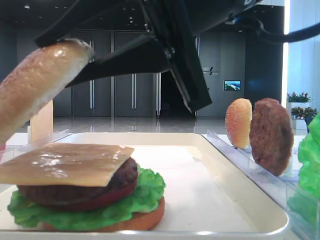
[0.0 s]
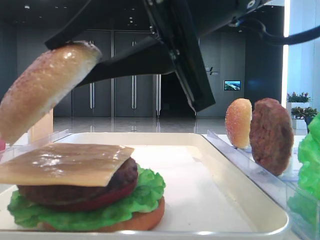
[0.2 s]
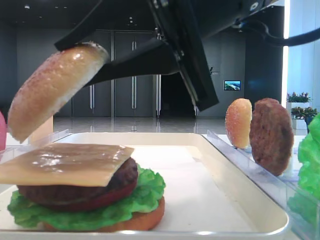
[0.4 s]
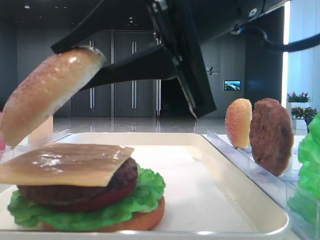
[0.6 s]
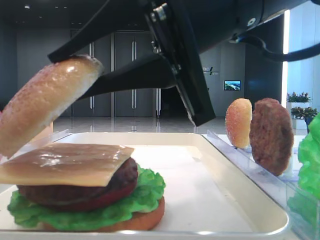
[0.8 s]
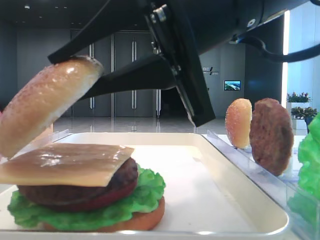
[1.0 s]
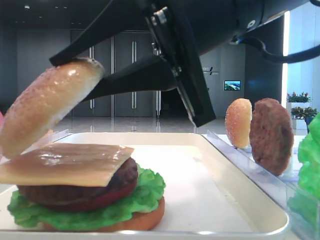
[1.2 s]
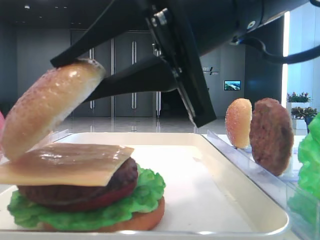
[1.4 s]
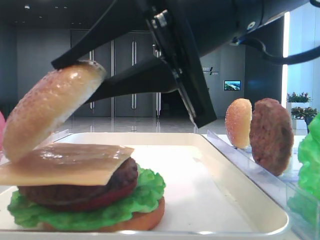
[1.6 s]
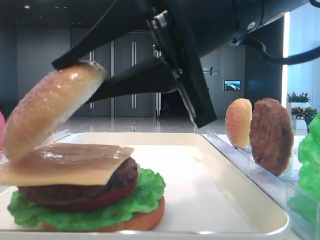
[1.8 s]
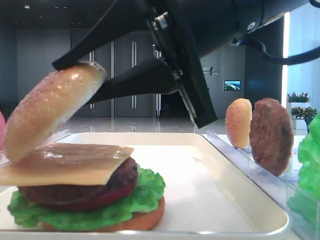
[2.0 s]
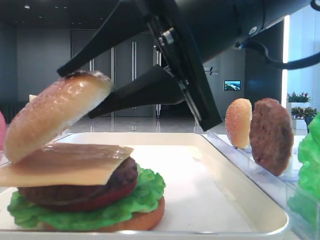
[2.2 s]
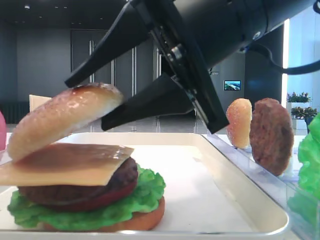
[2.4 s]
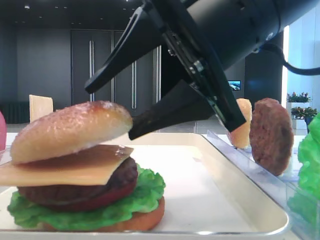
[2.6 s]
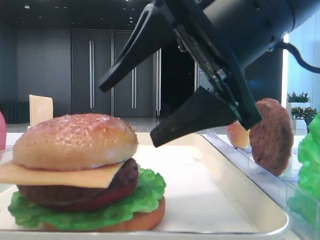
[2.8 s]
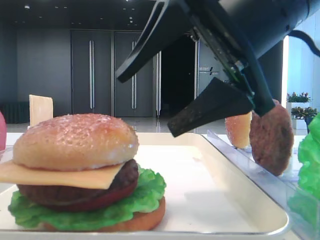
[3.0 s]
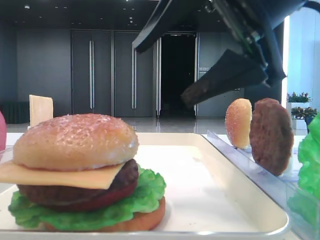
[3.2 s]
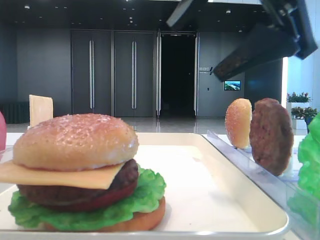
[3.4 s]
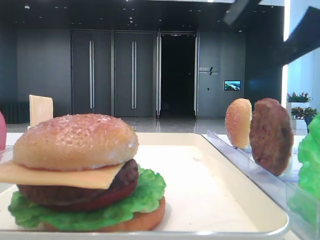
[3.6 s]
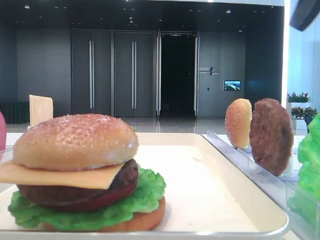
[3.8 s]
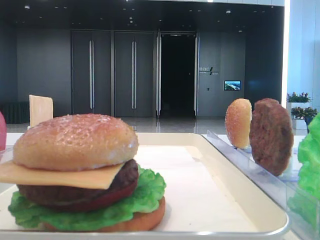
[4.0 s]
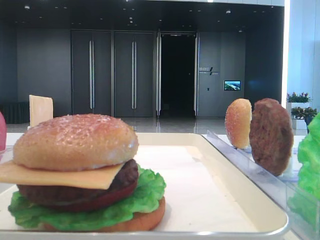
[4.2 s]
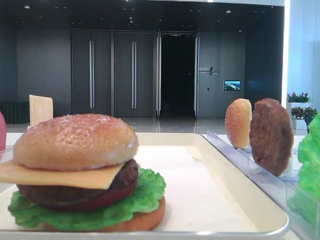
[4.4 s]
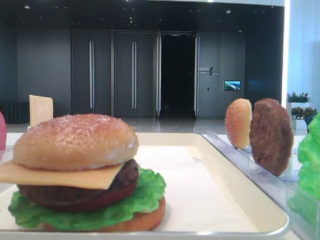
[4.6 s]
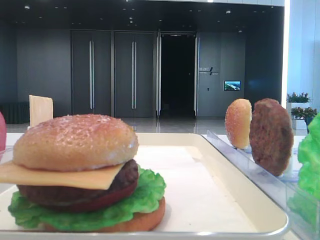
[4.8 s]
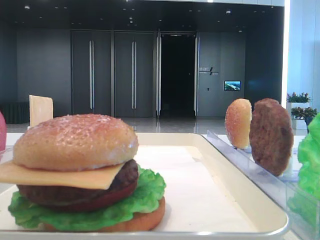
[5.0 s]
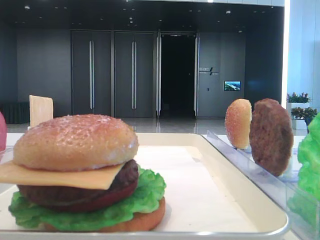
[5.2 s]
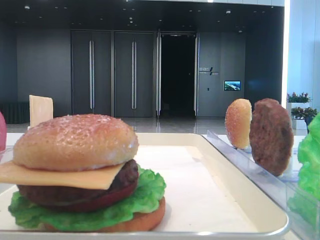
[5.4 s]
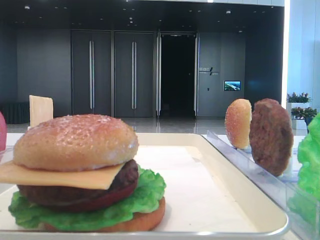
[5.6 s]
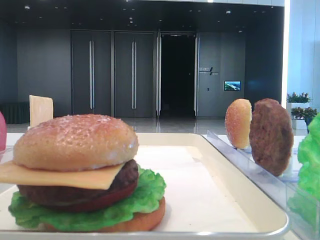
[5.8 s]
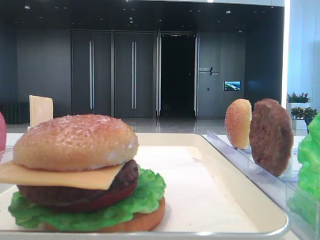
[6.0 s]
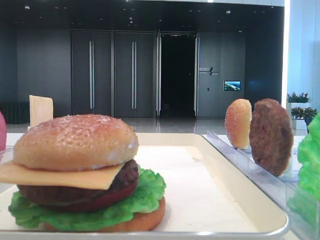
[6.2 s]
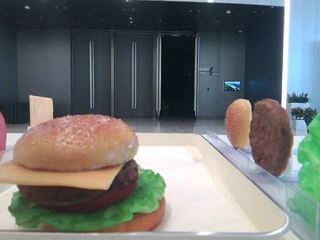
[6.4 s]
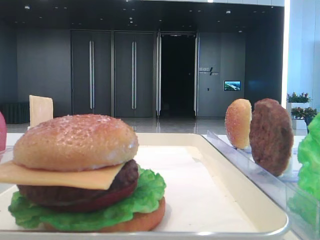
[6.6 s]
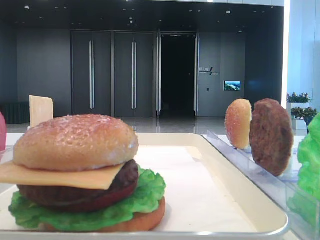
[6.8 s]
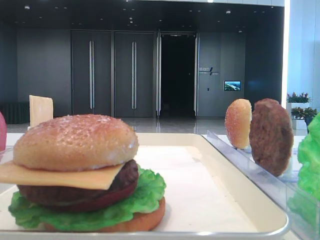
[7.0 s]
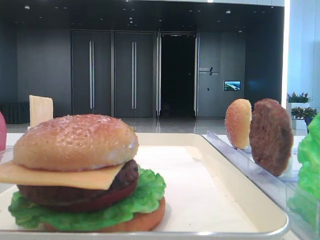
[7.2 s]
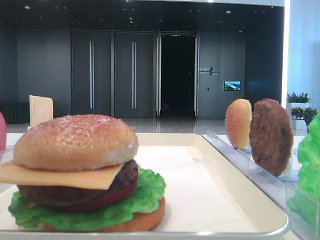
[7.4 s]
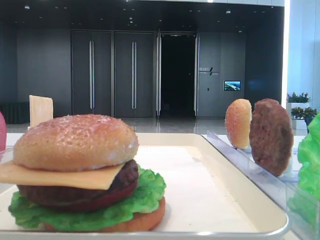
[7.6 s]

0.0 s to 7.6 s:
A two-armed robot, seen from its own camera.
Step, 0.0 to 2.6 s: Place the top bread slice on the cheese with the right hand.
0.0 to 1.6 s: The grippers stay close to where they were, moving slightly.
1.6 to 3.0 s: The right gripper opens its fingers.
3.0 to 4.6 s: The right gripper goes about 20 cm to the right and upward.
6.0 to 7.6 s: The two grippers keep their place.

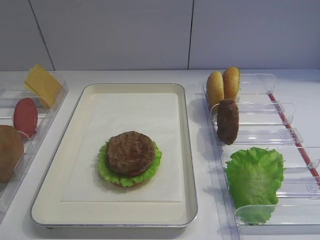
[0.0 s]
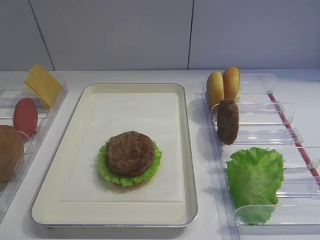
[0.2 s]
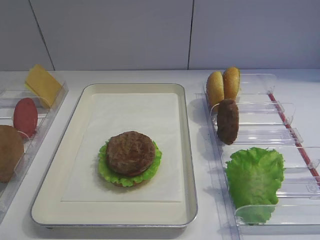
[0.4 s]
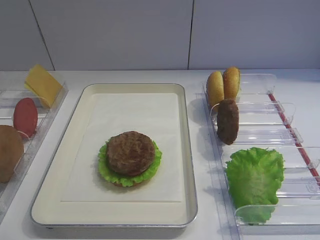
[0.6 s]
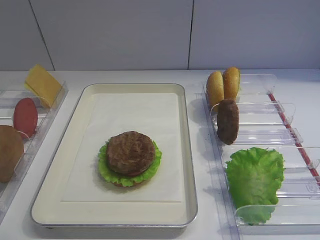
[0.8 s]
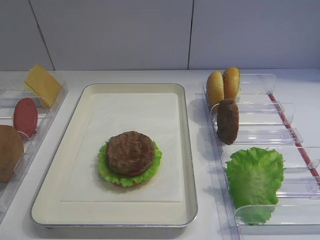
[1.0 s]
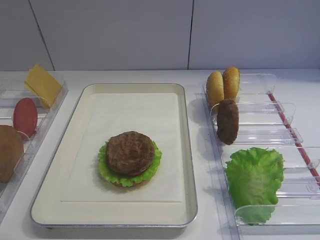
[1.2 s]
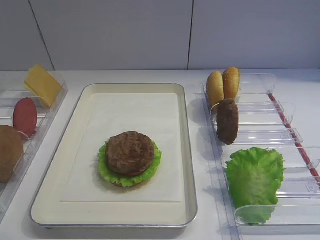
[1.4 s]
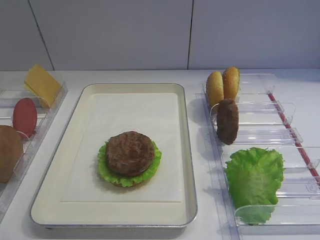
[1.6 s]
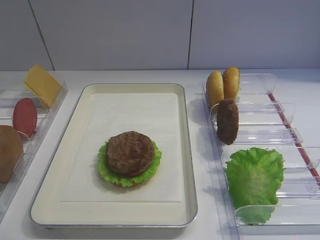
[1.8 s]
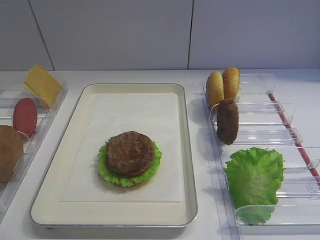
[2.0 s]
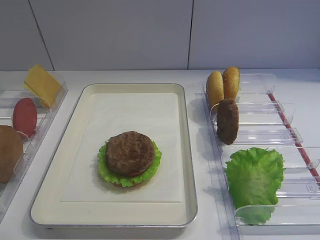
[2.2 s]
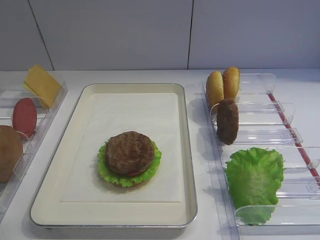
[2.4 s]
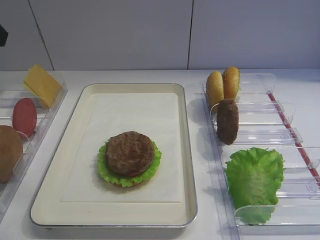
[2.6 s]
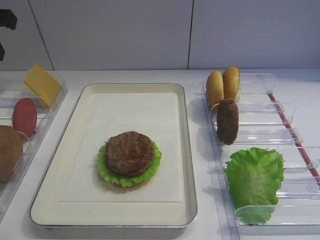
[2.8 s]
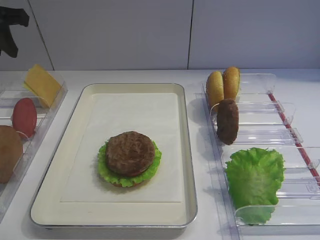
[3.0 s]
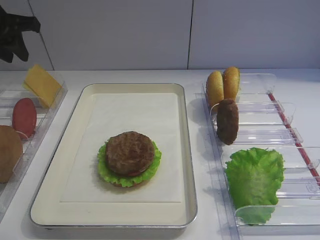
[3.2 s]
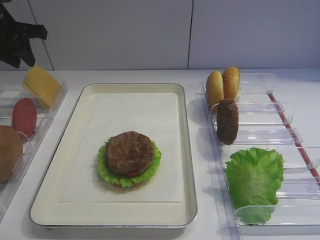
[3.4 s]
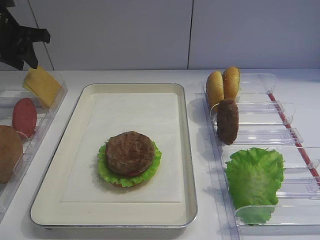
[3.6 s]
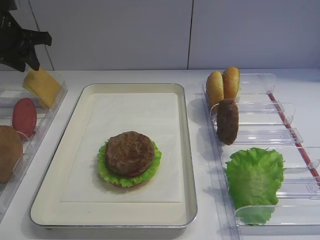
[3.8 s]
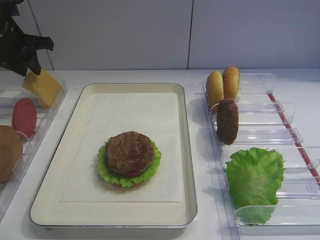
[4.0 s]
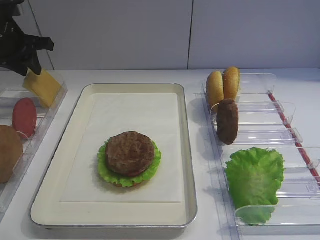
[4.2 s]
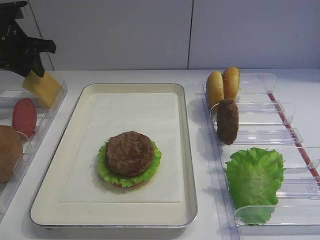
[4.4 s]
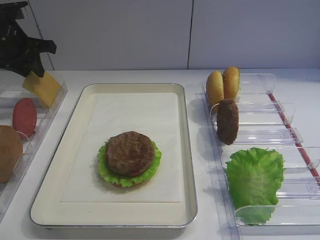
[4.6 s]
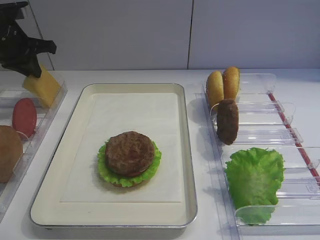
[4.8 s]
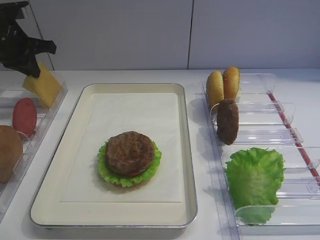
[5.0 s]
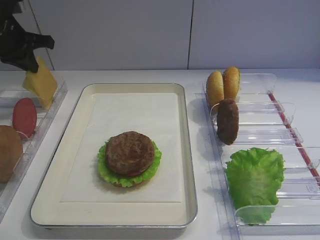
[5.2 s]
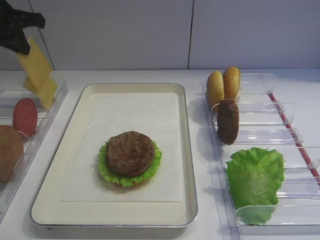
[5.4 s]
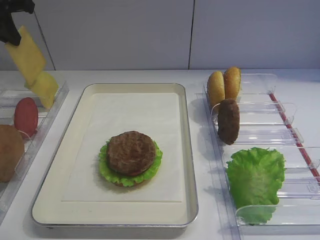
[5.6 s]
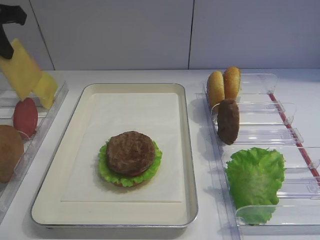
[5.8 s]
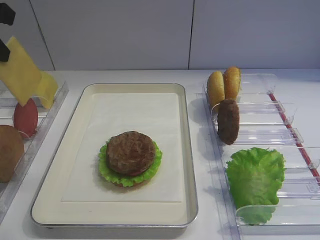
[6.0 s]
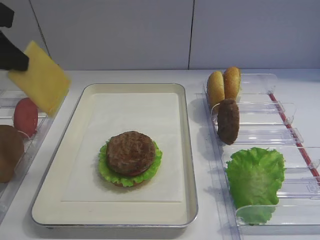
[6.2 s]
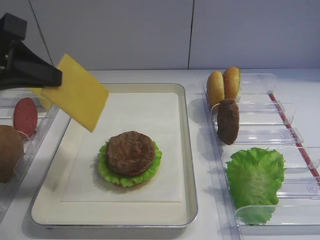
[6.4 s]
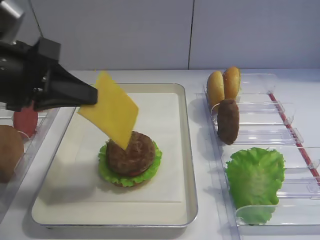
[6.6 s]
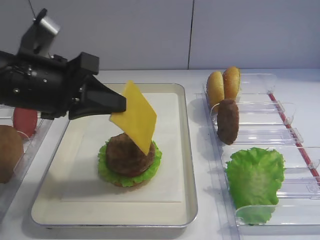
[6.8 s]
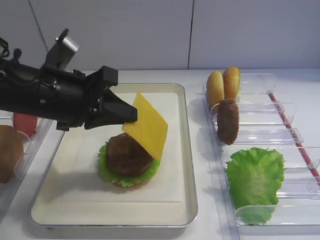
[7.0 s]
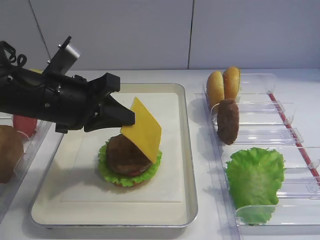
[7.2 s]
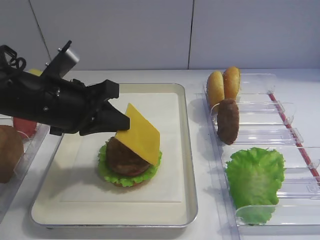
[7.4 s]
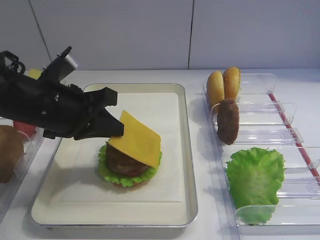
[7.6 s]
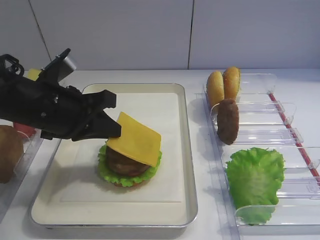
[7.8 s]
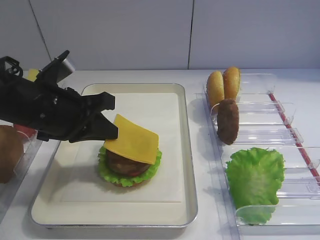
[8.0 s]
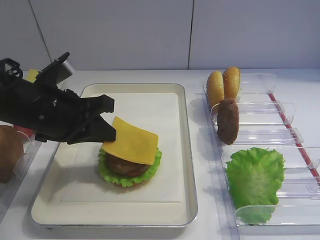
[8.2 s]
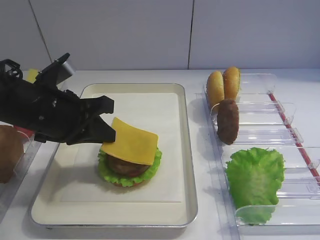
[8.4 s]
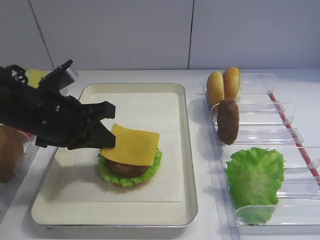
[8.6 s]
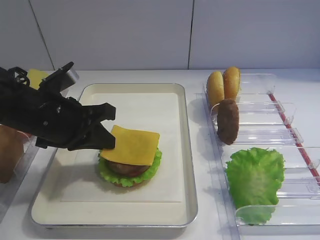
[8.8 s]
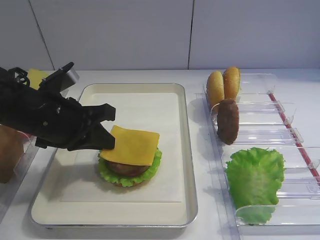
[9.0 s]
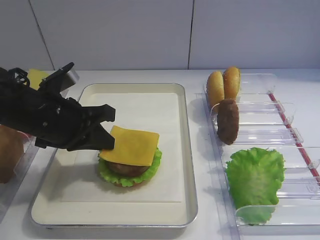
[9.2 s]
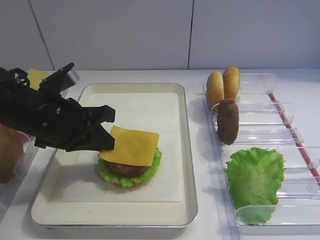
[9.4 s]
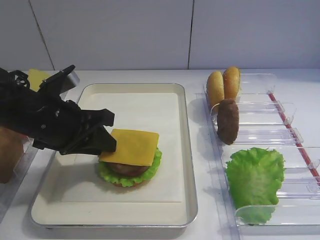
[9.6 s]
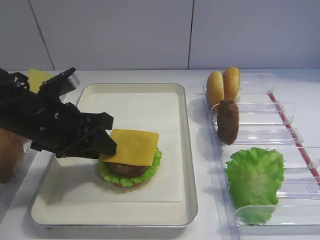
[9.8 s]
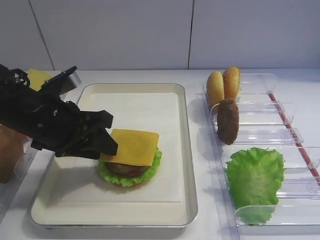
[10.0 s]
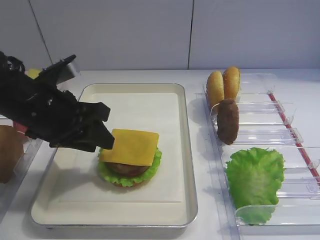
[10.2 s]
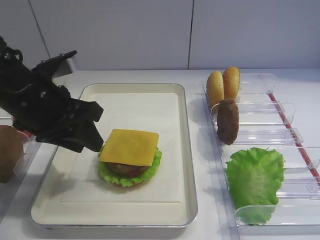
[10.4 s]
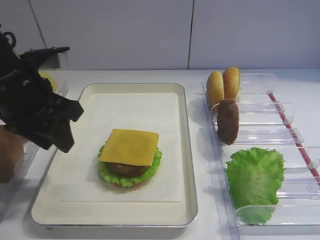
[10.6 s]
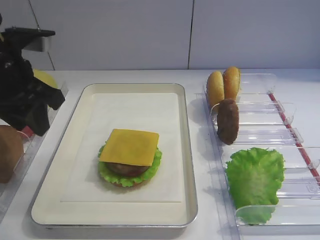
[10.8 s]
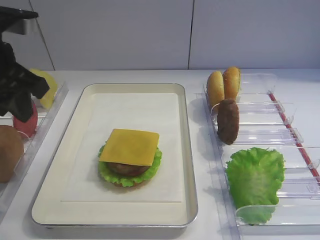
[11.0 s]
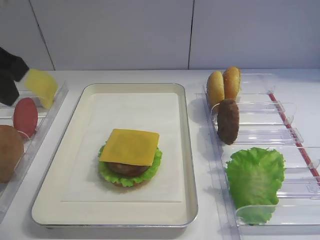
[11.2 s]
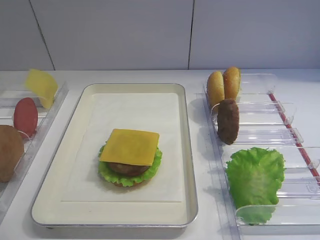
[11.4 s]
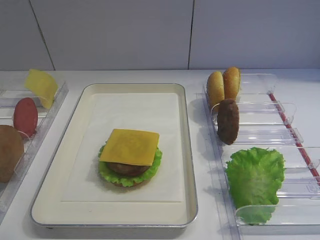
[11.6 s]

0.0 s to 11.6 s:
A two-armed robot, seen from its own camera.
Step, 0.0 to 5.4 s: Pick up the cheese slice with the left gripper.
Step, 5.6 to 10.4 s: Place the cheese slice on the cutlet with the left gripper.
2.8 to 4.4 s: The left gripper heads forward and downward, covering some 15 cm.
4.4 to 5.8 s: The left gripper moves backward and upward, about 15 cm, and closes its fingers.
5.8 to 7.2 s: The left gripper travels to the right, downward and backward by roughly 20 cm.
7.2 to 8.8 s: The grippers make only small movements.
8.8 to 10.2 s: The left gripper opens its fingers.
10.2 to 11.6 s: The left gripper is displaced upward, backward and to the left by approximately 25 cm.
